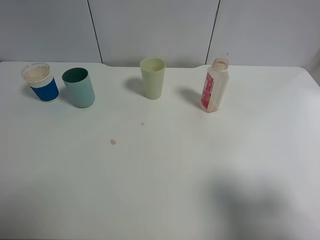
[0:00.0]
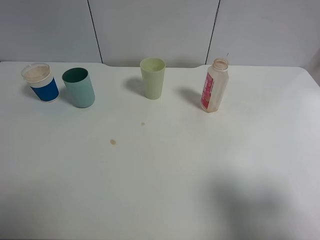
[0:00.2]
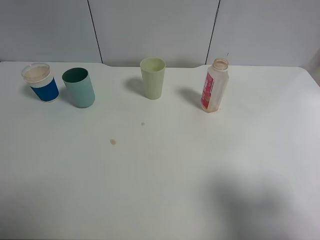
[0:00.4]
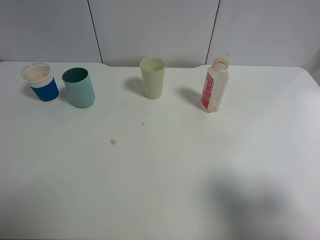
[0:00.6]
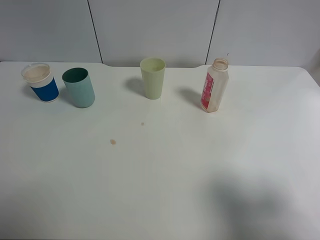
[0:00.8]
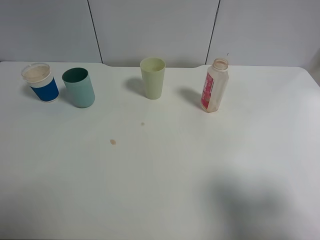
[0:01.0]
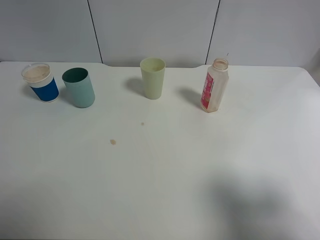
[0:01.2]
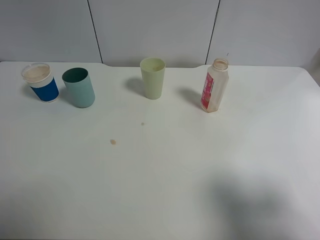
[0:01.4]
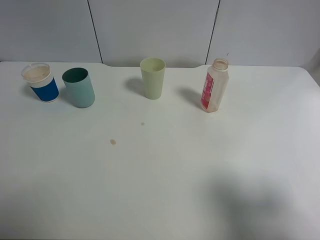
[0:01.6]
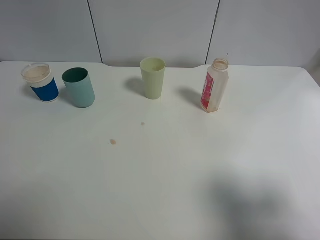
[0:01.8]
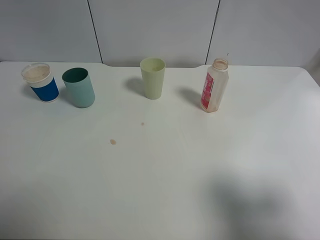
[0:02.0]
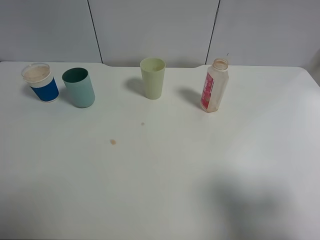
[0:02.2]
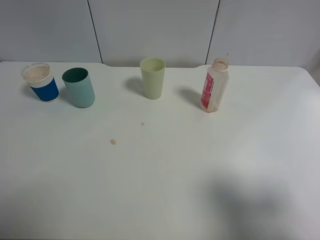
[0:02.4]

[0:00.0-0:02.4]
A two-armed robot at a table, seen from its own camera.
Task of the whole recording: use a clamp to hold the bottle of the drink, pour the beverage into a random cup, then clamp the cup containing the drink and pour the drink into another random cup.
0:01.2 to 0:02.4: The two grippers keep their place.

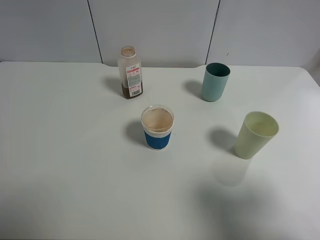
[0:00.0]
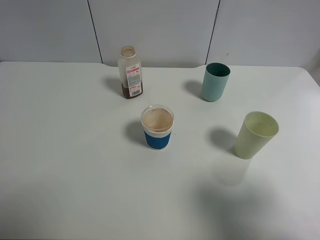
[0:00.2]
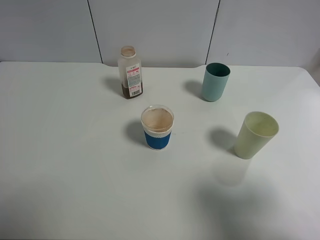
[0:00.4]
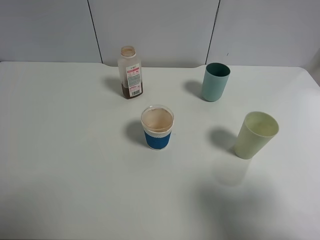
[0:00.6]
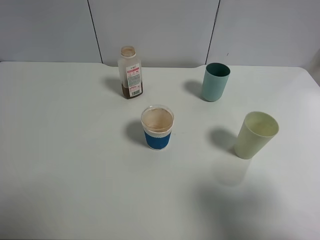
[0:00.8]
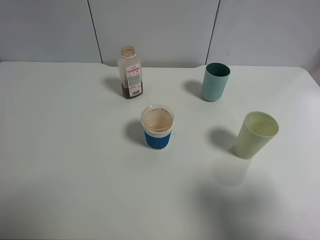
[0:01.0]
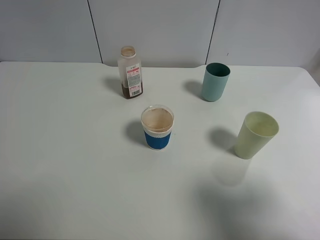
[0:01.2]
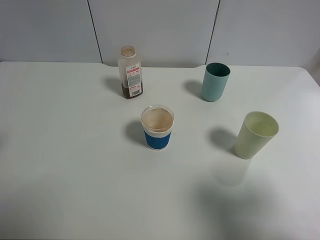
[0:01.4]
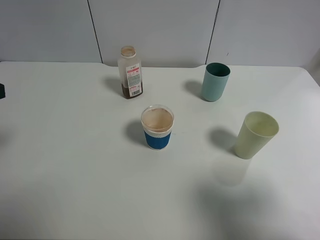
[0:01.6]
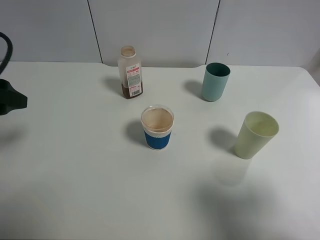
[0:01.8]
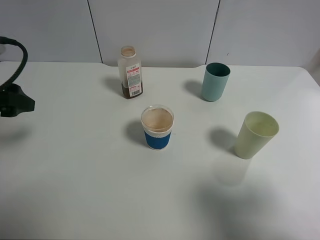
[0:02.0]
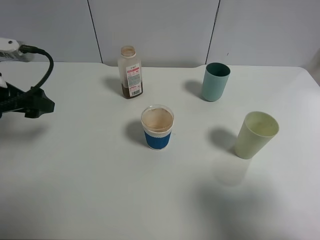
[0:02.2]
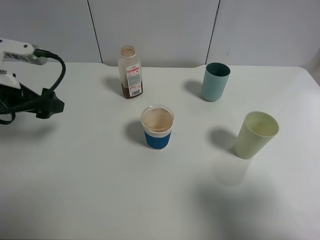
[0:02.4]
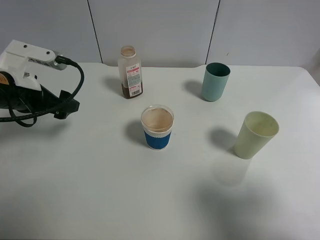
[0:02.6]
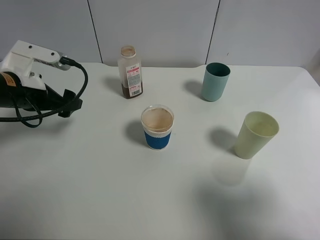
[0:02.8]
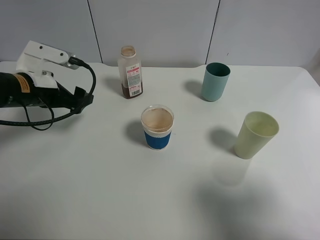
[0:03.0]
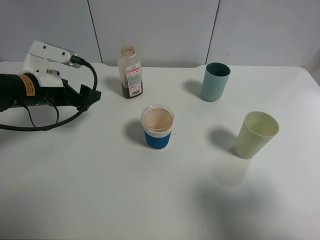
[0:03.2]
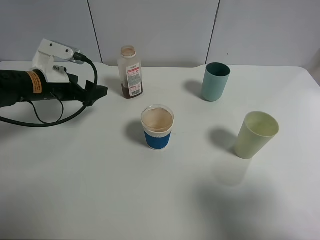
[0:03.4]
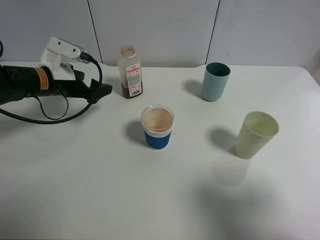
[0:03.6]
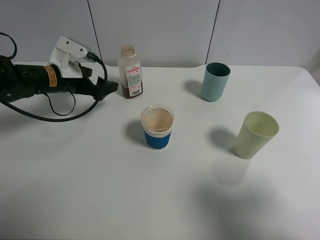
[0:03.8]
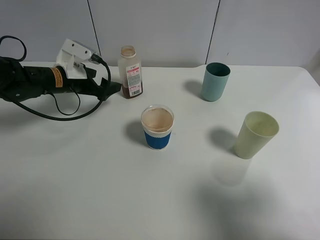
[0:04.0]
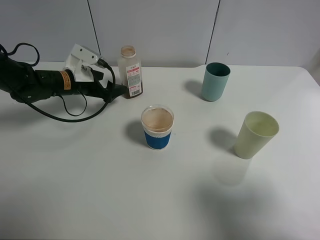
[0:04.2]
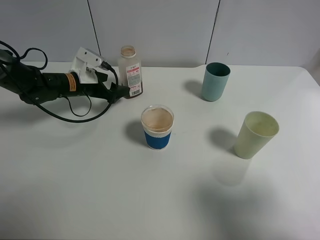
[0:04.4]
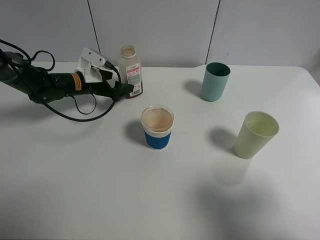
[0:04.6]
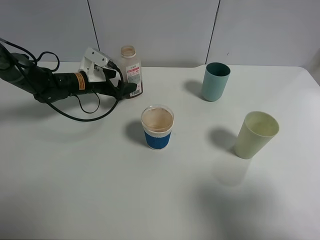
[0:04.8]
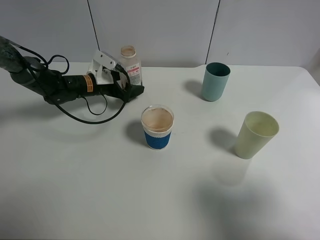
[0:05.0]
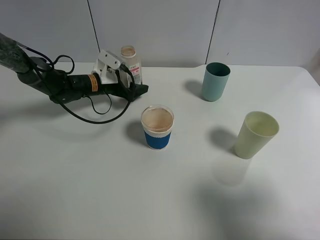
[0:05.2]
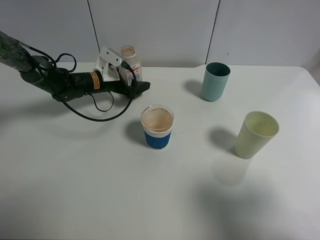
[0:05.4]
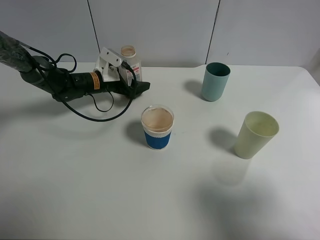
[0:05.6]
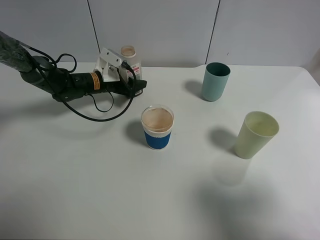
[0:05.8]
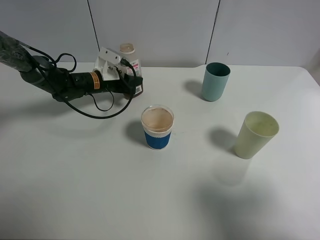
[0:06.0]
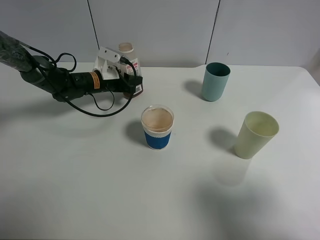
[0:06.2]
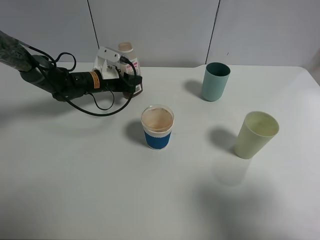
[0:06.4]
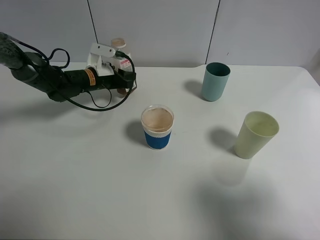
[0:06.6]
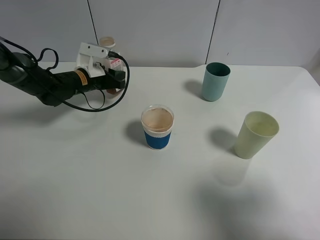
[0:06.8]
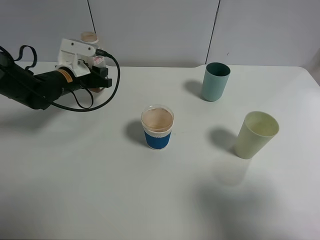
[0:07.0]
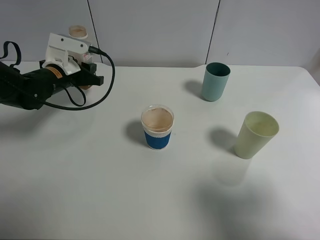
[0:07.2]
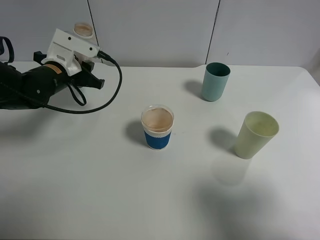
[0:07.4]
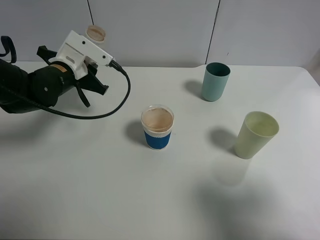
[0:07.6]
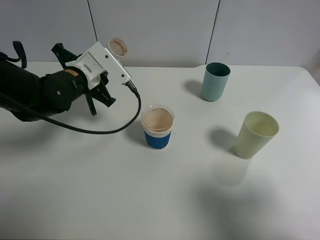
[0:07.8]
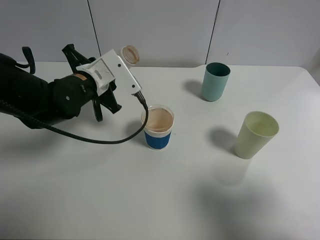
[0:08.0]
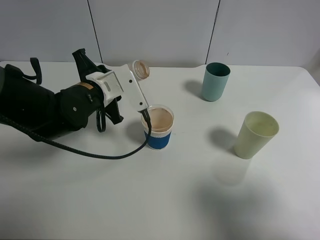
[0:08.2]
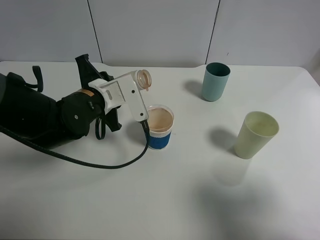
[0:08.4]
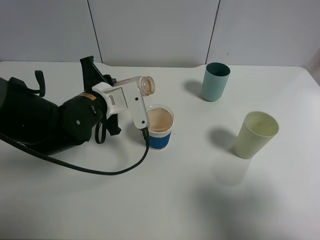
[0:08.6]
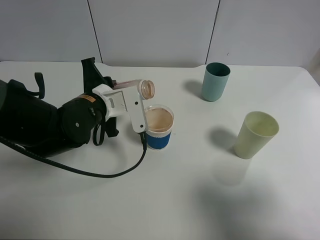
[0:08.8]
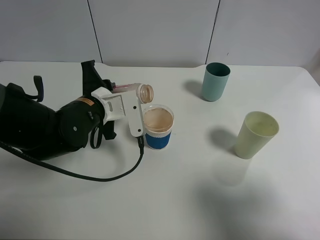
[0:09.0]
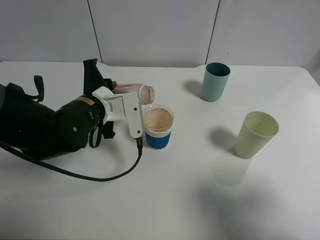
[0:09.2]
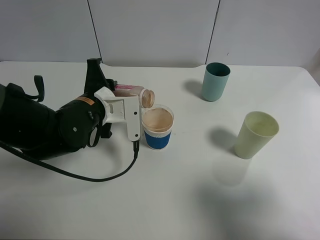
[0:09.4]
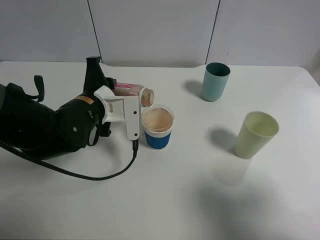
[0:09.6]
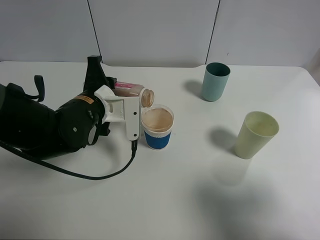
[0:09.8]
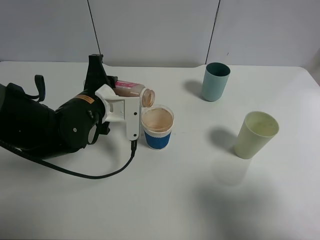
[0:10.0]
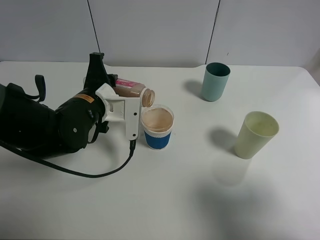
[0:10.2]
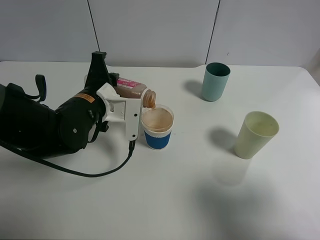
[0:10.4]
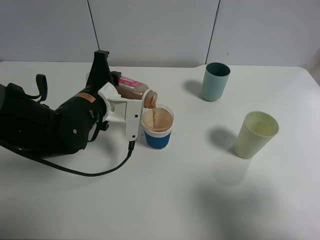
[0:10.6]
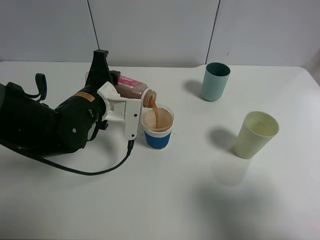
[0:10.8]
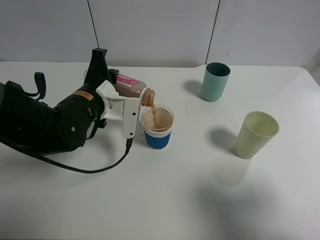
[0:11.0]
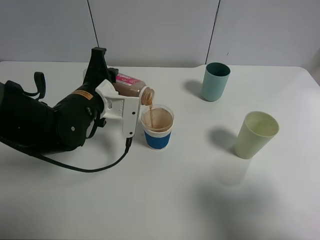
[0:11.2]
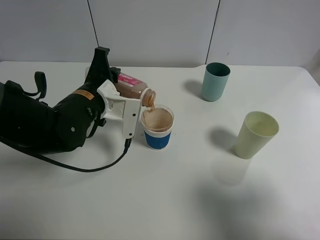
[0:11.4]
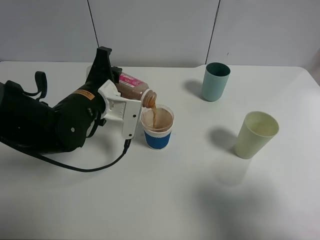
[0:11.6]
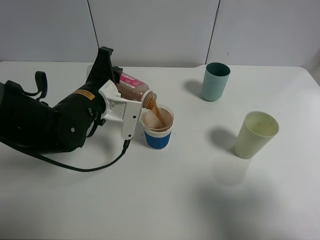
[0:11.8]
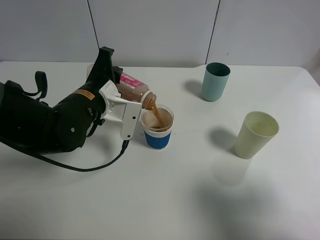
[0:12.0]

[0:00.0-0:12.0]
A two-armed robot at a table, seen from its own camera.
Task of the whole recording: use a clamp to hold the bottle of the drink, pour the beverage into a random cup, then clamp the cup containing the drink and pour the drink into another random cup.
Step, 0:00.0 to 0:06.6: Pick up the drink bottle with left gripper.
0:01.6 to 0:03.0: The left gripper travels forward, downward and to the right by approximately 20 cm.
0:03.0 to 0:04.4: The left gripper moves forward and downward, approximately 15 cm.
0:04.4 to 0:06.0: The left gripper ends up approximately 5 cm from where it was, and closes its fingers.
0:06.0 to 0:07.6: The left gripper heads backward and upward, covering some 15 cm.
0:07.6 to 0:09.0: The left gripper is displaced backward and to the right by about 10 cm.
0:09.0 to 0:10.4: The grippers stay close to where they were, moving slightly.
0:10.4 to 0:12.0: There are only small adjustments of the grippers.

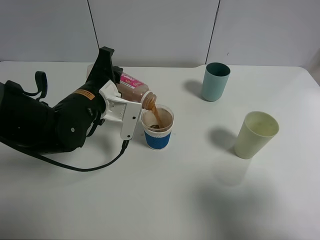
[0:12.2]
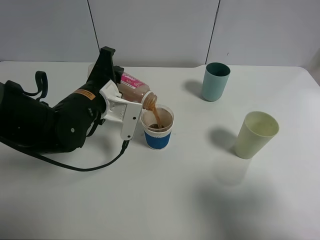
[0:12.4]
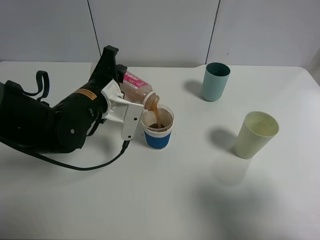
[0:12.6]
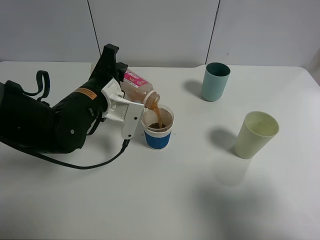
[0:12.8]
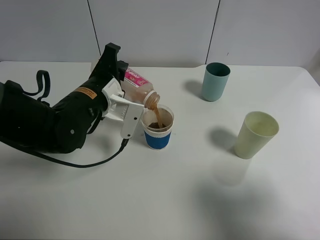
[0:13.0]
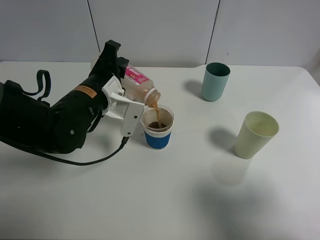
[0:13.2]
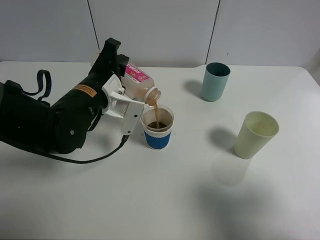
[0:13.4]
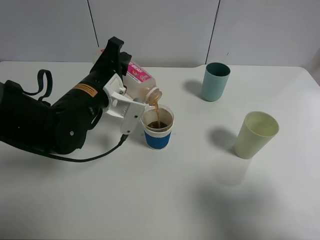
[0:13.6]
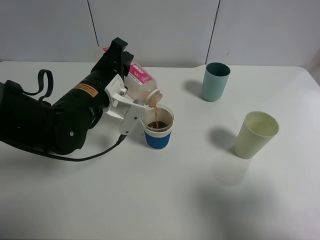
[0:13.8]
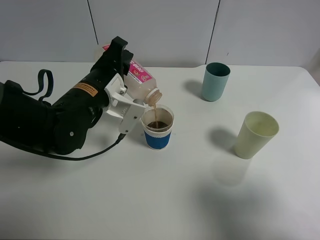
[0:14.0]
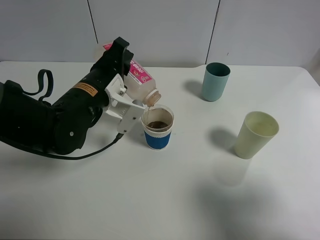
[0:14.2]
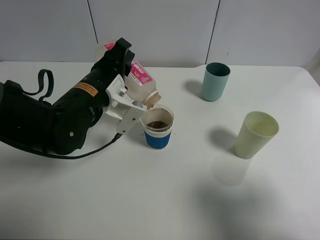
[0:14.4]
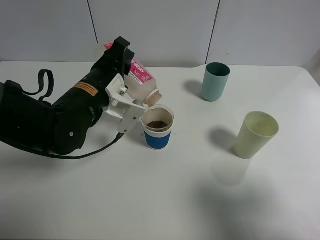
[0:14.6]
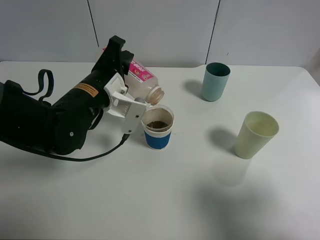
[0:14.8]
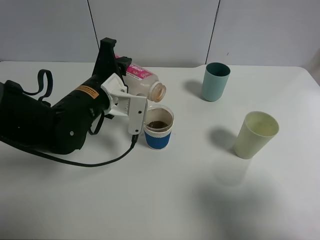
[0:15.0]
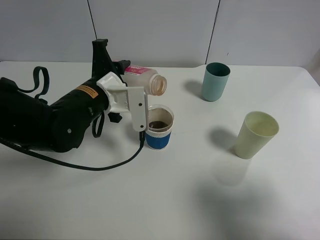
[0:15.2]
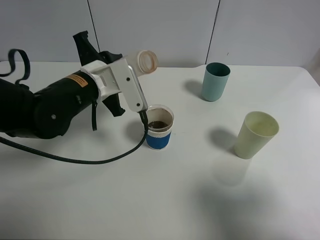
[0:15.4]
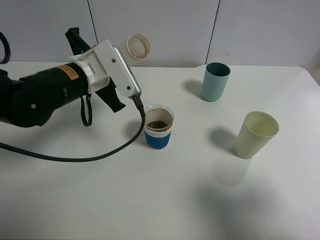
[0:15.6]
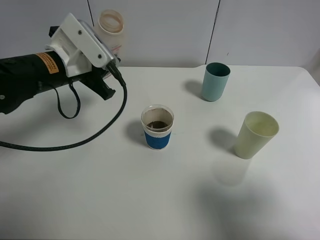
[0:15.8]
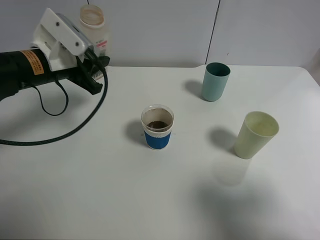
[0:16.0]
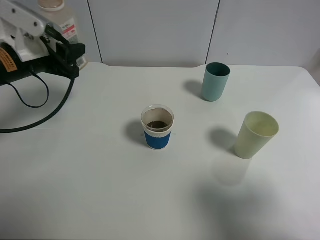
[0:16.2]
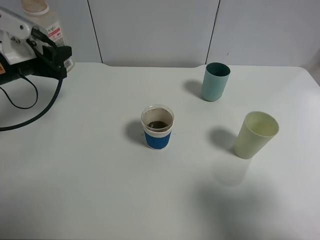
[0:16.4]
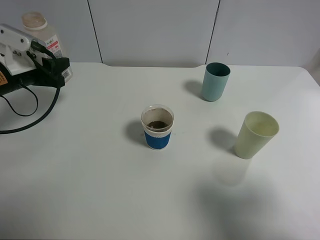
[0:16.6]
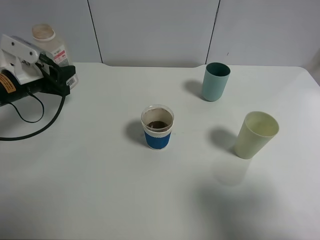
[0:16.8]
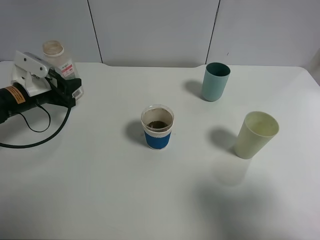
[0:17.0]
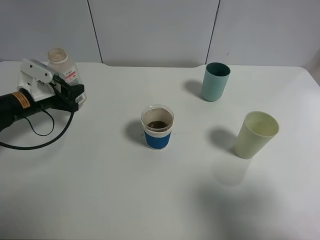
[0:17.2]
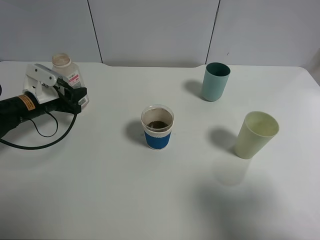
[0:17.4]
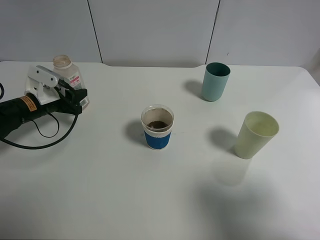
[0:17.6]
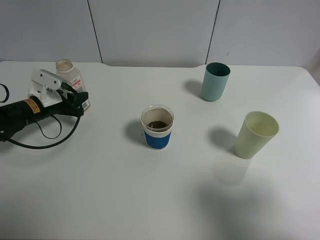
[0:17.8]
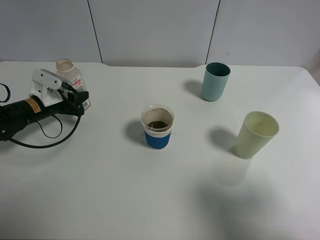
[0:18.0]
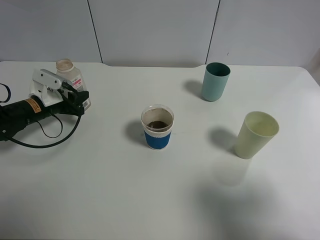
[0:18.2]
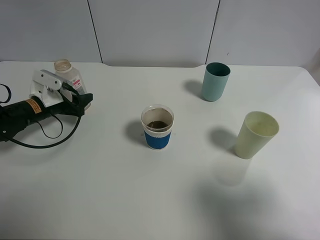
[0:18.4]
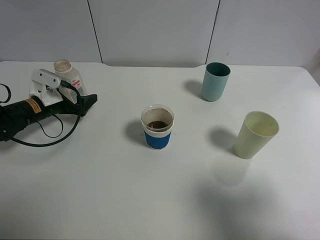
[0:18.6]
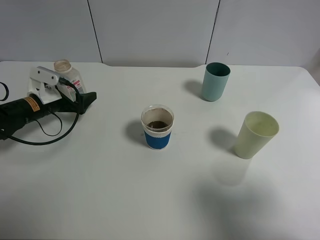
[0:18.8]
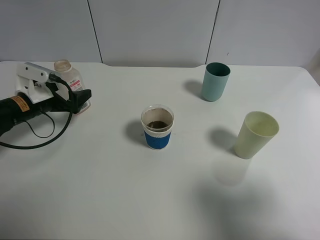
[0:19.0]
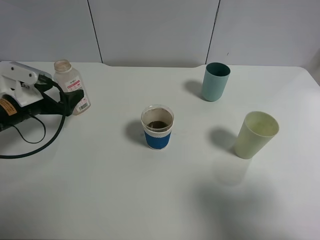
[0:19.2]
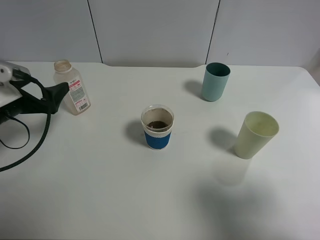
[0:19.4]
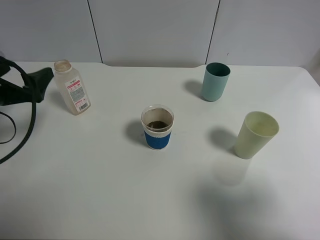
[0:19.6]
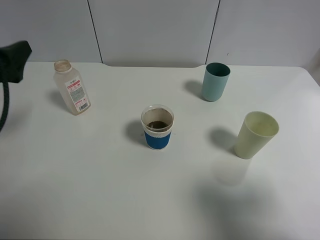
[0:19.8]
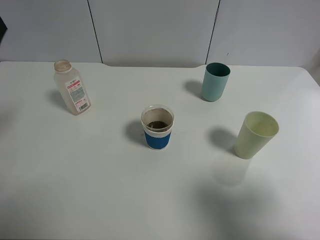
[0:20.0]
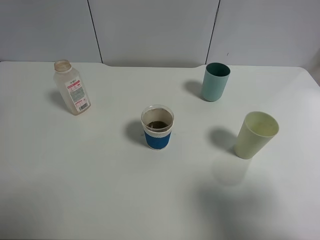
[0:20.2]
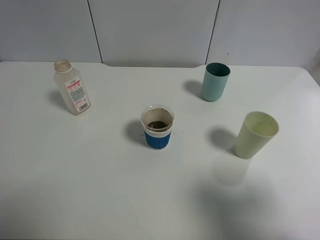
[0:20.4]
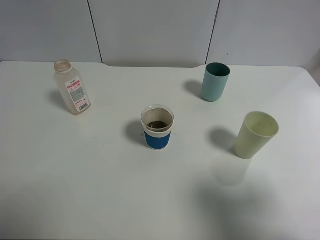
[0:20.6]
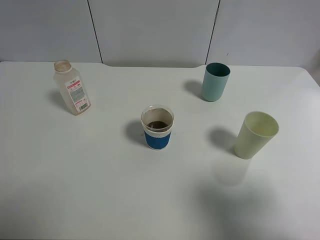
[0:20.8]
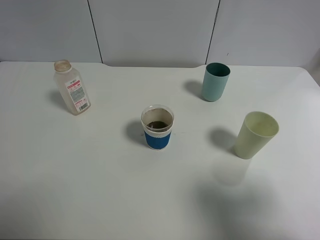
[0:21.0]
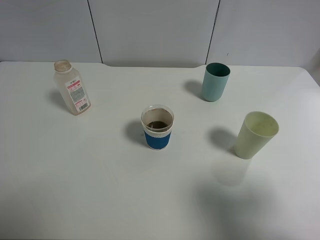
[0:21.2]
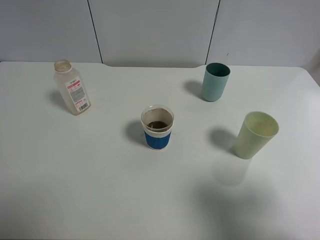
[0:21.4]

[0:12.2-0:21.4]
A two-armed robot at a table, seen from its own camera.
Task of the whole recording: use a clamp to hold the bottle of the drink, pour the beverage into a random cup, then clamp the cup containing the drink and pour the drink into another random cup.
Step, 0:12.2 to 0:14.8: Pour the drink into the paper cup with left gripper.
Step, 0:15.0 to 0:18.4: Place the drink bottle on the table with left gripper.
0:12.2 to 0:13.8: There are only small adjustments of the grippers.
0:15.2 to 0:16.8: The left gripper goes about 15 cm to the left.
0:16.8 to 0:18.4: The left gripper shifts about 10 cm downward, and opens.
0:18.4 to 0:19.8: The left gripper heads upward and backward, covering some 25 cm, and opens.
0:19.8 to 0:21.4: The left gripper is displaced backward by roughly 20 cm.
